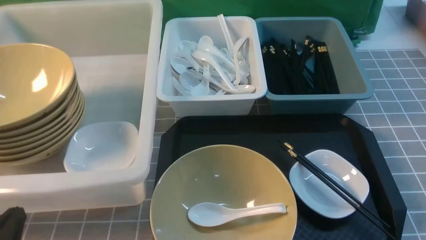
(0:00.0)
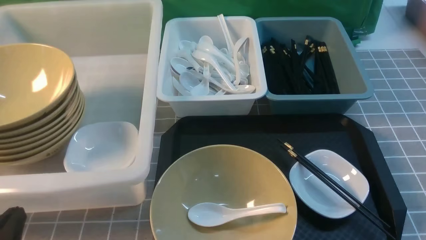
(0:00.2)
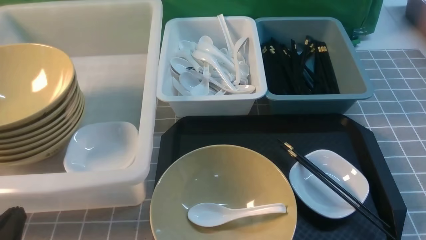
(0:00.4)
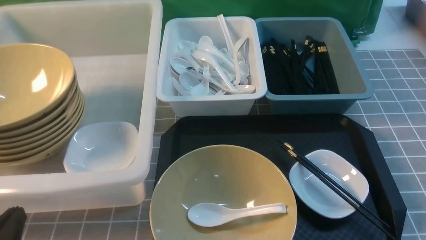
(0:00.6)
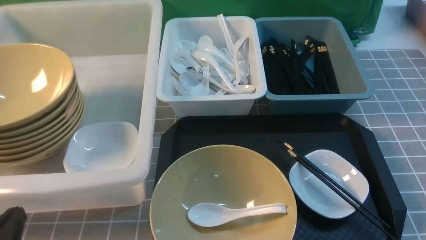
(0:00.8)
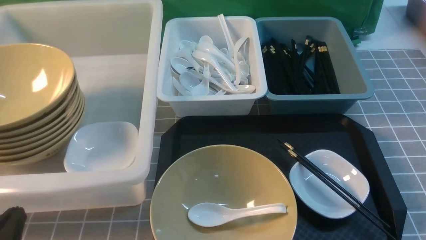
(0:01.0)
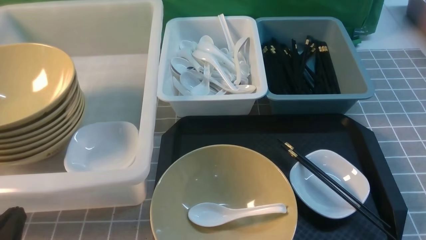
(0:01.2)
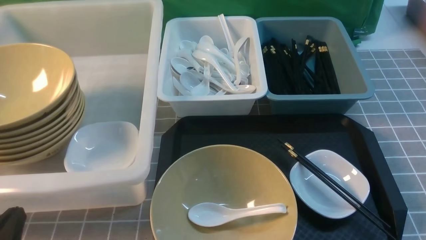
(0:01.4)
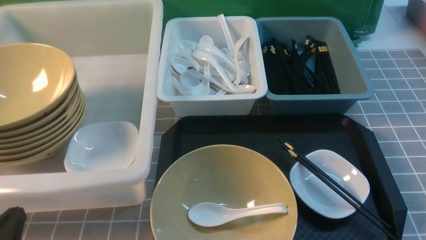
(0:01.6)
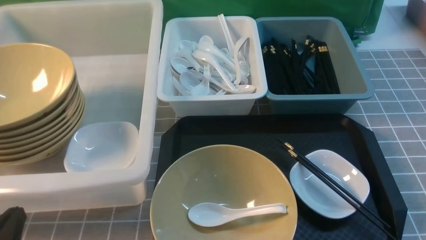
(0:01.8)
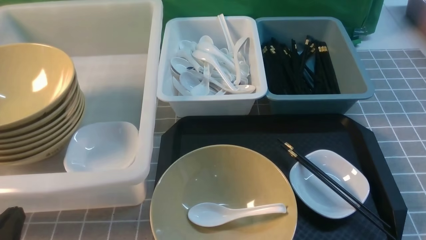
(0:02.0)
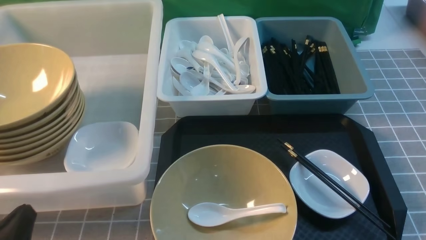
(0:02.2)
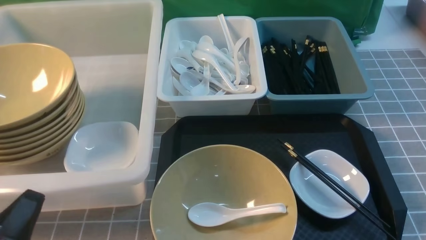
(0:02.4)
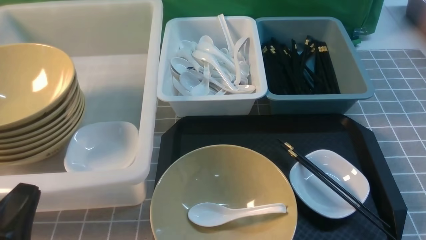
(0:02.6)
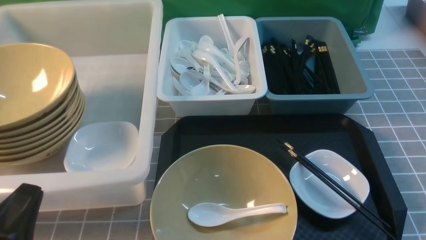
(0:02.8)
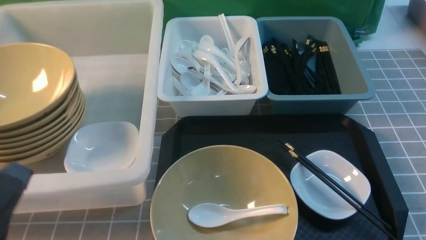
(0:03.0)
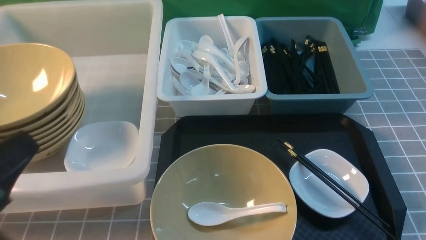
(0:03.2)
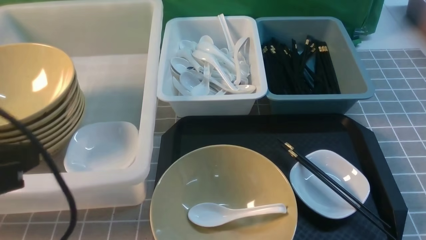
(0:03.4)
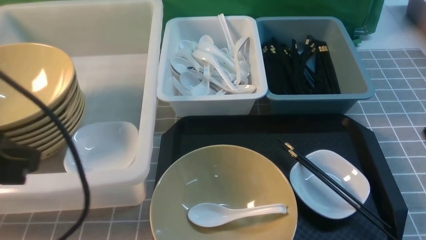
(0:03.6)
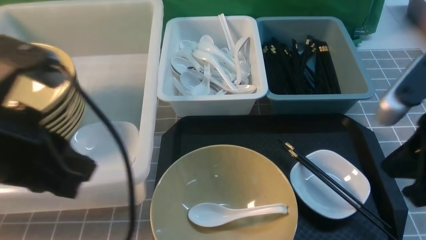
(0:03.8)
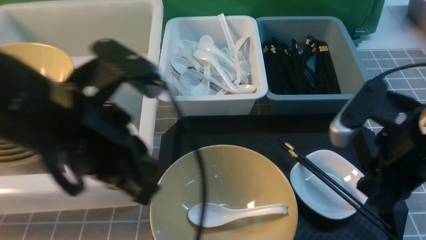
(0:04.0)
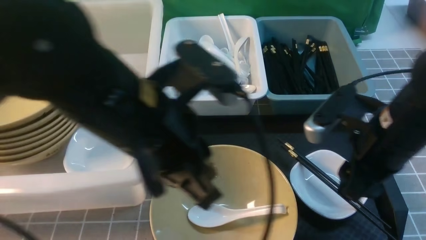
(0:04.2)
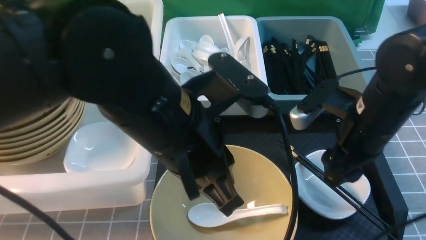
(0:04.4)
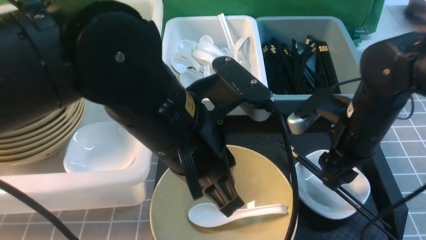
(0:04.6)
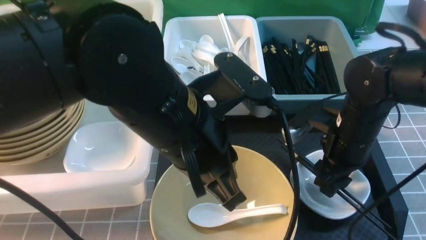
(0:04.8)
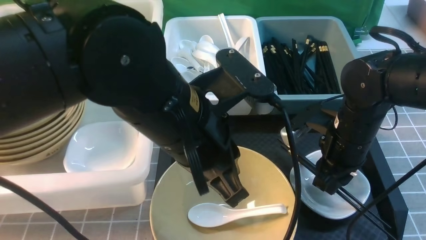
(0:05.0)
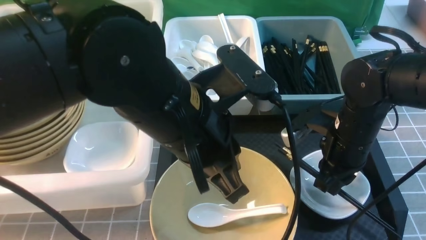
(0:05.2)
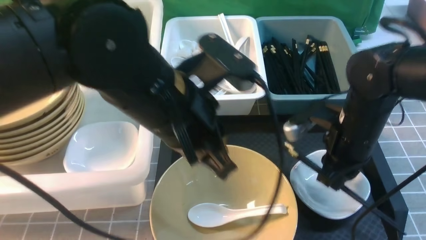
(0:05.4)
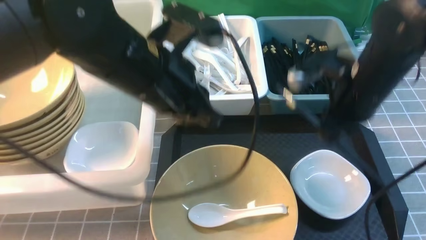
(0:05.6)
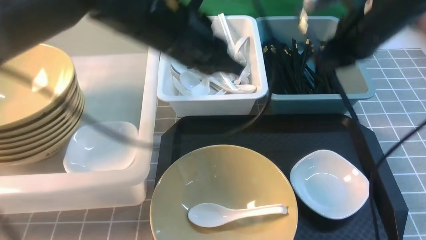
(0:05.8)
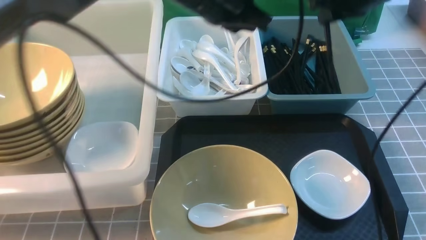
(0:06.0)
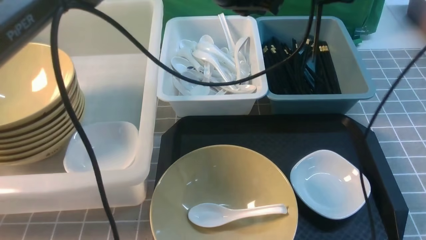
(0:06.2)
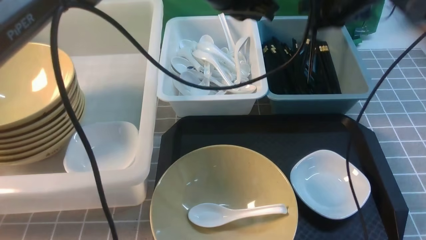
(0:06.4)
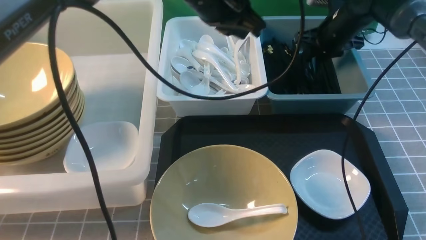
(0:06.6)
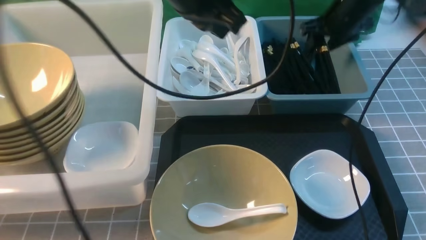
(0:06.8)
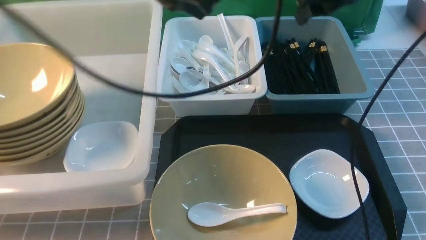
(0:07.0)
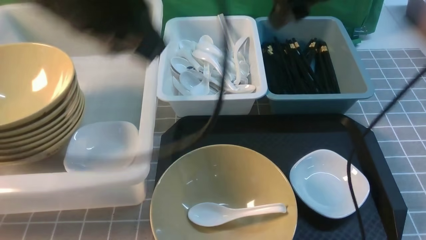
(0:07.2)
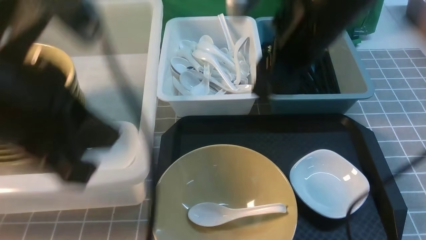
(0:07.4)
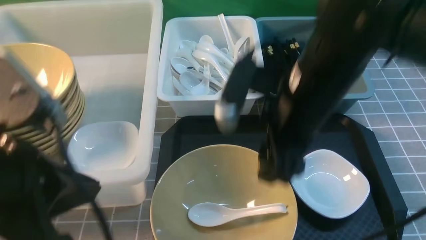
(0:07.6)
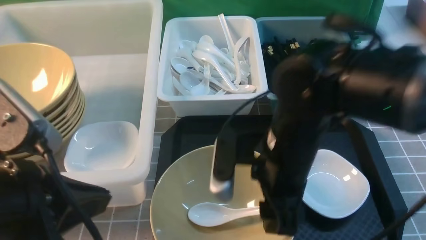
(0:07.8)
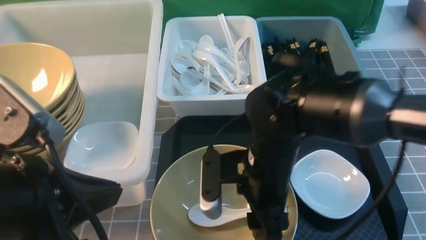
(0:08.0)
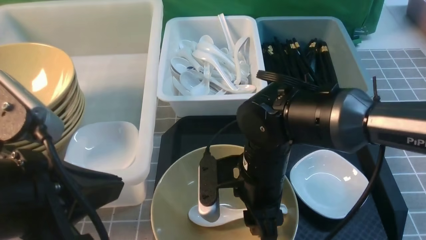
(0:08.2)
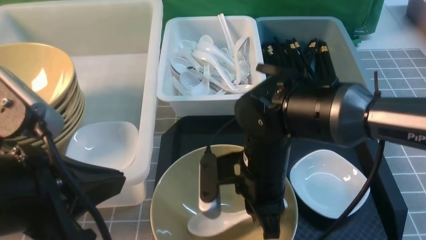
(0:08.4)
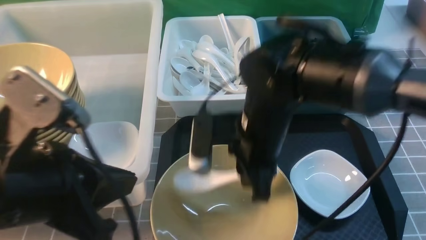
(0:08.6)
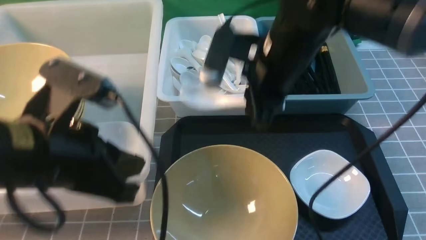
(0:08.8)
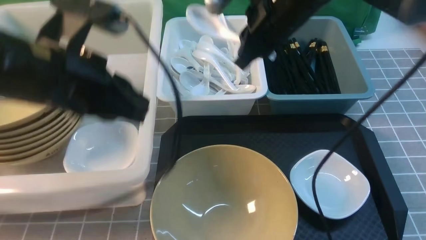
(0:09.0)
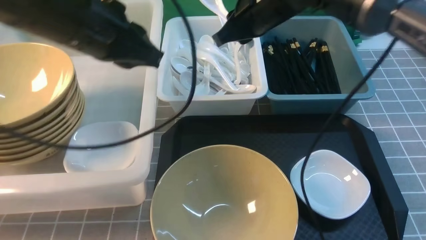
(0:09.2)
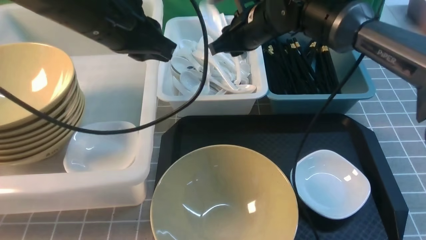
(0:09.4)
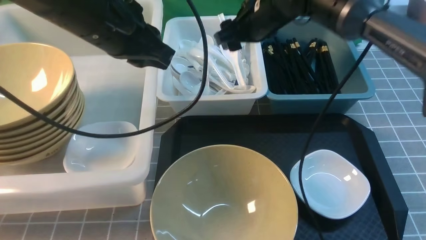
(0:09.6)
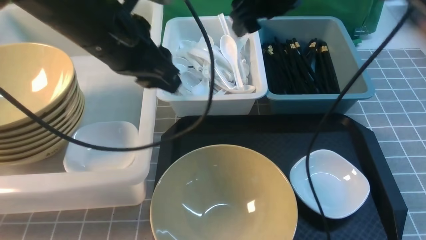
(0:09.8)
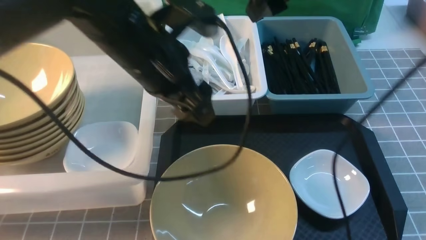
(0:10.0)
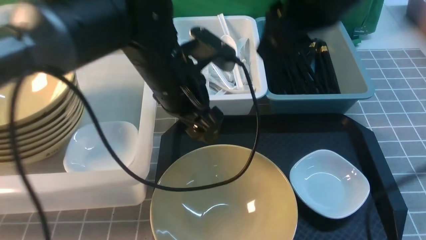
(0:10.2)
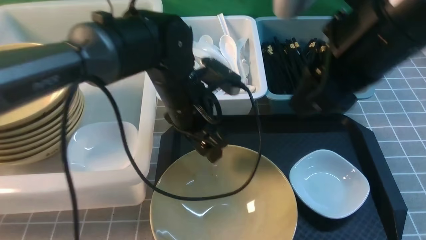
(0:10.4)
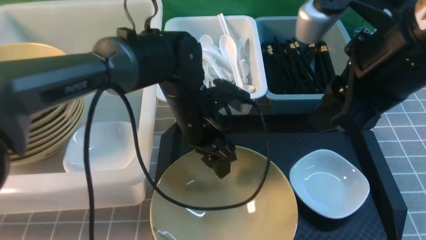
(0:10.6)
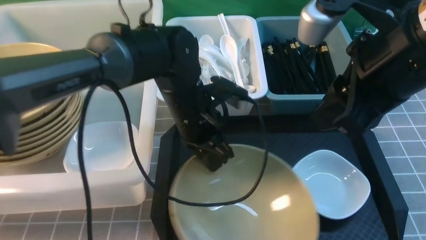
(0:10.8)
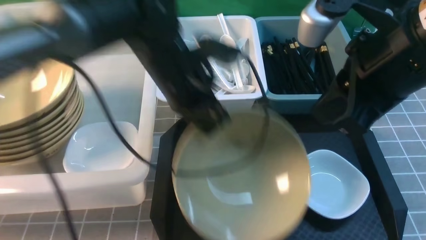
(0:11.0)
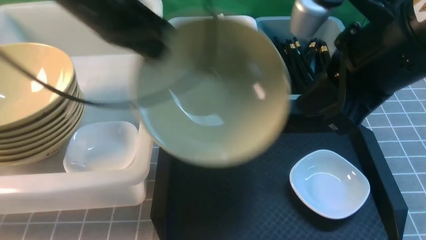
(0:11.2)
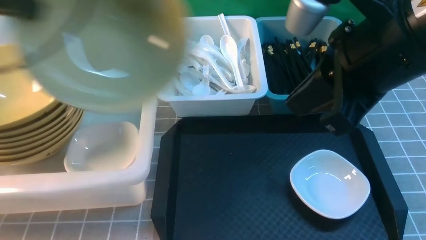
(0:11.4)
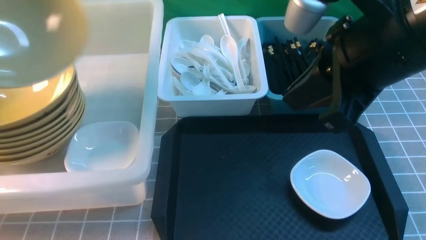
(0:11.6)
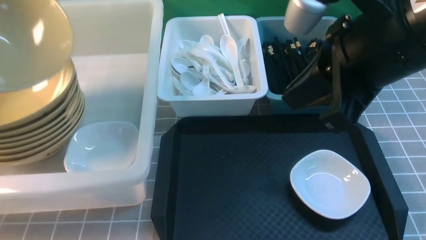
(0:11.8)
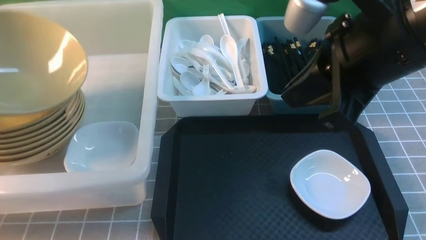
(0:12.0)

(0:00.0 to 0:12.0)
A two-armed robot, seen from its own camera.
Task of the whole recording: on grey table put chopsticks spoon bowls plates into blue grey white boxes.
Step, 0:00.0 - 0:05.4: use the right arm to grab the chopsticks.
Step, 0:05.6 - 0:06.6: use the right arm to put the chopsticks into the small storage box on the right.
Step, 0:07.0 - 0:08.4: use the right arm to grab the soup spoon in the middle.
Step, 0:08.8 - 0:09.6: use the right arm to put the soup spoon into the small storage box in the middle.
Step, 0:09.8 - 0:11.0: use the left arm to grab the yellow noodle bowl on the left.
0:00.0 - 0:01.6: Both grippers stay about where they are.
0:01.6 - 0:03.0: The grippers both shift upward by about 10 cm.
0:03.0 - 0:04.4: The right gripper goes about 25 cm forward and to the left, and opens up; the left gripper is displaced to the right and forward by roughly 25 cm.
0:04.4 - 0:06.0: The right gripper moves forward and upward, approximately 20 cm, and closes its fingers. Meanwhile the left gripper goes roughly 15 cm forward.
0:06.0 - 0:07.6: The two grippers go approximately 25 cm backward and to the left. The right gripper opens its fingers.
0:07.6 - 0:09.0: The grippers both shift forward by some 10 cm. The right gripper closes up.
0:09.0 - 0:10.4: The left gripper goes approximately 20 cm downward, to the right and forward, and opens its fingers. The right gripper goes some 20 cm backward, upward and to the right, and opens.
0:10.4 - 0:12.0: The left gripper goes roughly 40 cm to the left, and closes up, while the right gripper closes up.

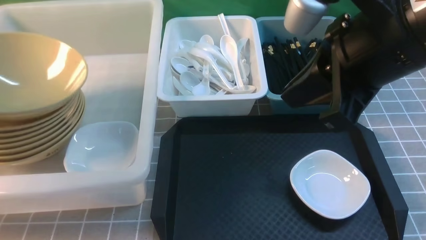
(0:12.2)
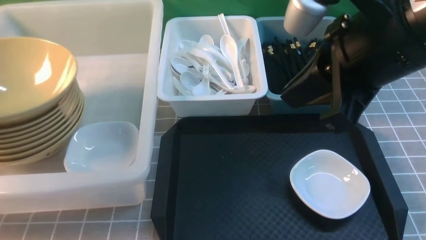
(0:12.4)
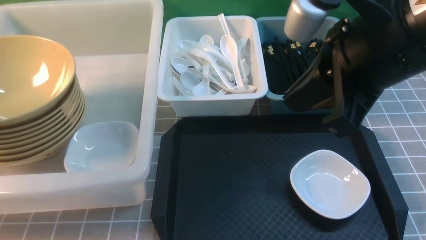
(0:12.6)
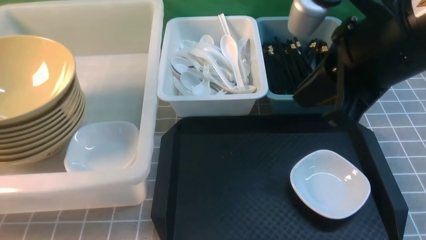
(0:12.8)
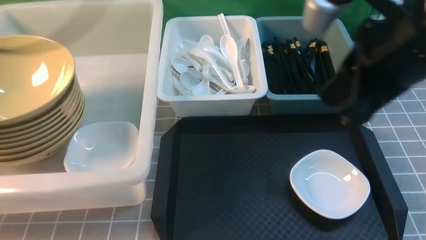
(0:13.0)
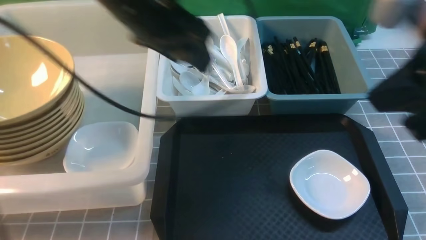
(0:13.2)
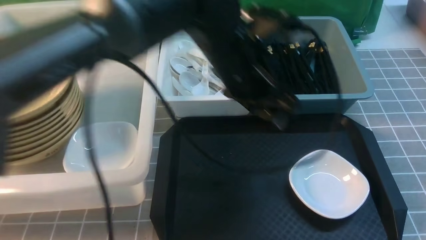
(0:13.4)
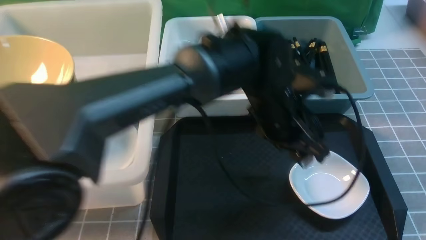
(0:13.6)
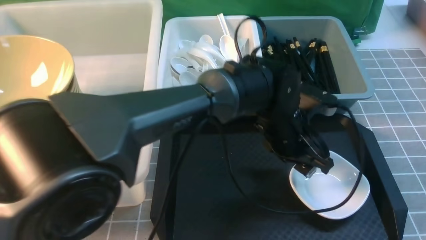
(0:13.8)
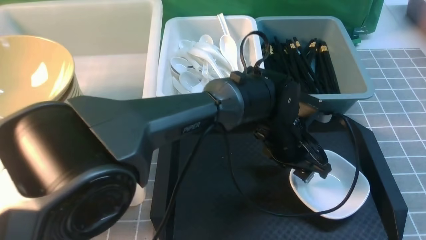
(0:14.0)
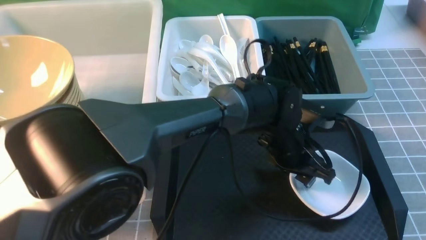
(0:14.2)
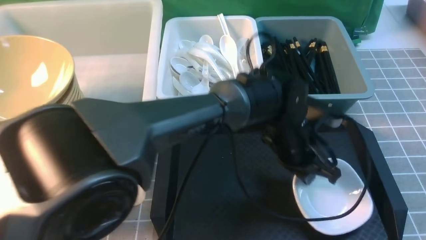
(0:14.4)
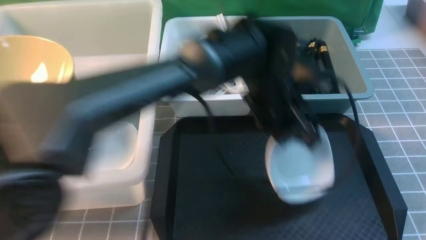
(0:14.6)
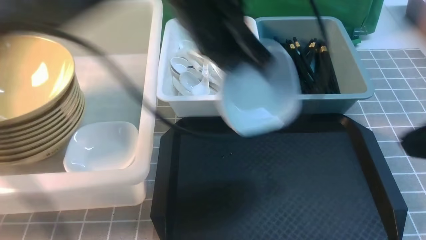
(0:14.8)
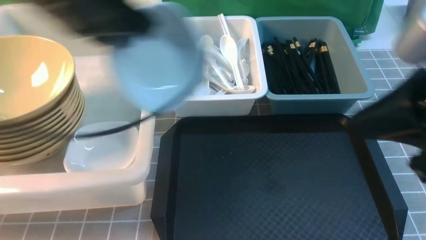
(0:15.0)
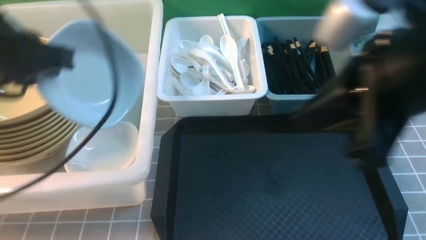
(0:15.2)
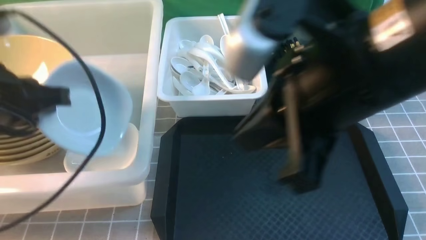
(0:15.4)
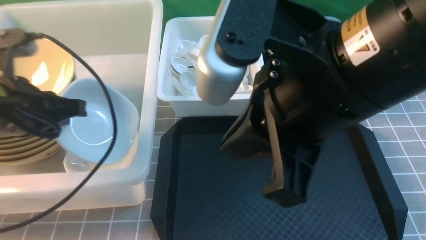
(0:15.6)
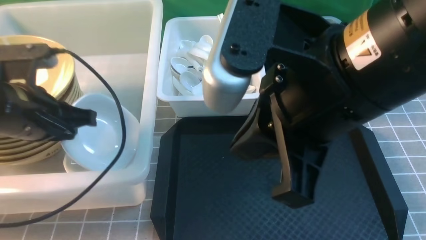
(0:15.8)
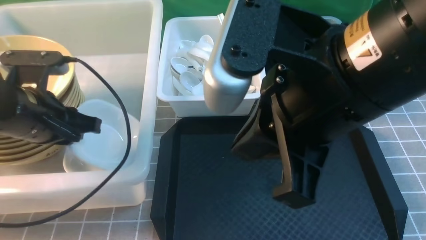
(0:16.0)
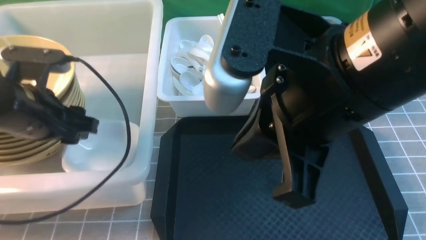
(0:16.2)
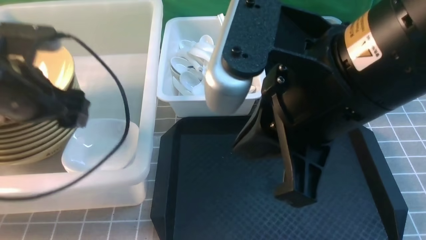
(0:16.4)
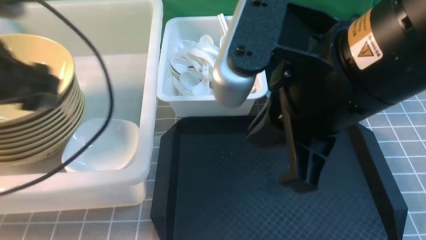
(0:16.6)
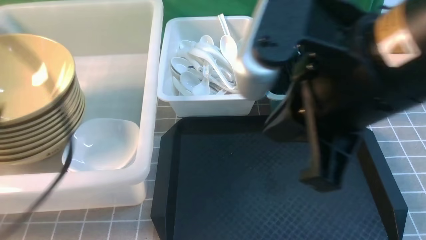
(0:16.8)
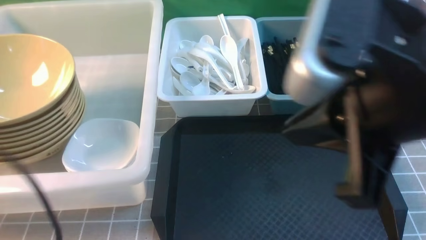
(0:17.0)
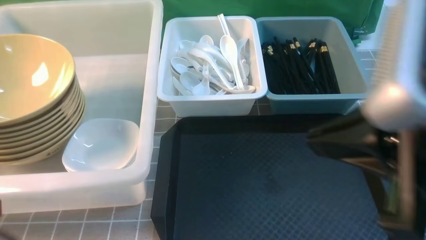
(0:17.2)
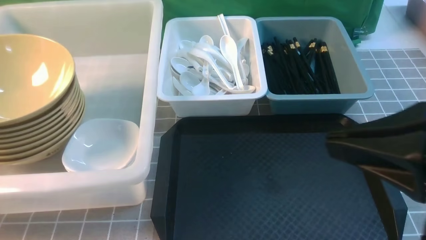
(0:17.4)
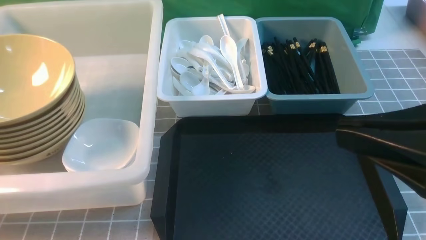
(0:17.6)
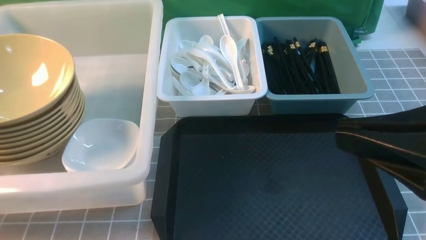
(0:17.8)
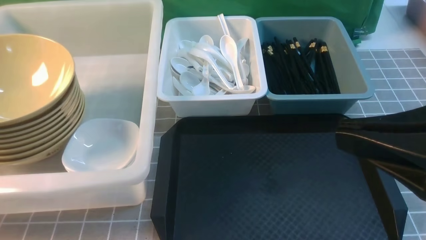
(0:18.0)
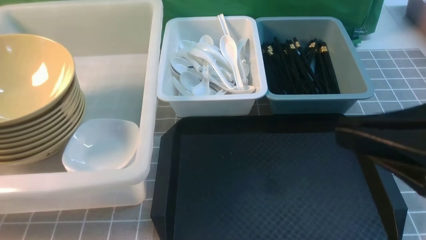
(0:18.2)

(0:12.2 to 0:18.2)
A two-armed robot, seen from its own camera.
Task of the whole recording: on grey table put chopsticks spoon bowls plates into blue grey white boxes.
Step, 0:12.6 - 0:14.4: use the left arm to grab the plate.
Step, 0:14.6 - 0:16.4: use the left arm to put the plate into the large storage box on the left.
0:12.2 - 0:13.8: The right gripper shifts some 15 cm to the right and backward; the left gripper moves to the right, some 50 cm, and opens its fingers.
0:13.8 - 0:15.2: The right gripper is displaced to the left and forward by approximately 15 cm. The left gripper goes some 35 cm to the left and upward, and closes.
0:15.2 - 0:16.6: The left gripper moves some 10 cm downward and comes back, and opens.
0:16.6 - 0:18.2: The left gripper shifts about 20 cm backward and downward, and closes up. Meanwhile the right gripper heads to the right and backward, covering approximately 10 cm.
